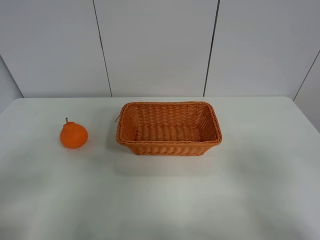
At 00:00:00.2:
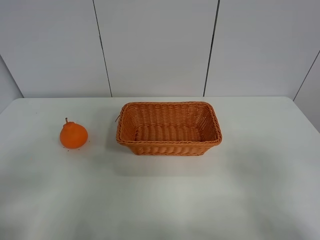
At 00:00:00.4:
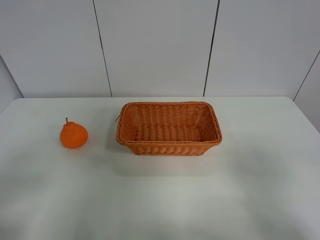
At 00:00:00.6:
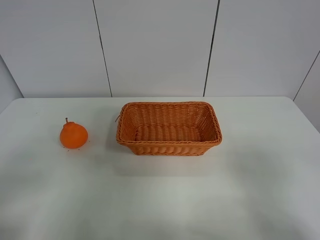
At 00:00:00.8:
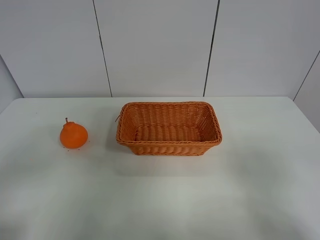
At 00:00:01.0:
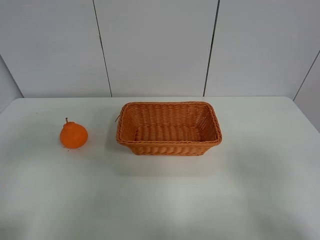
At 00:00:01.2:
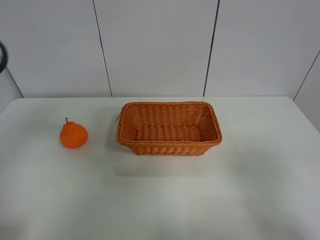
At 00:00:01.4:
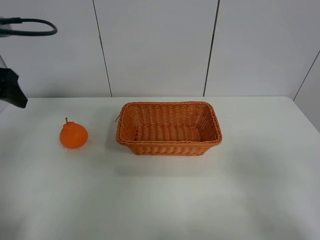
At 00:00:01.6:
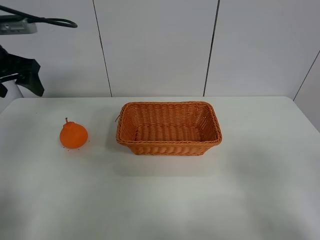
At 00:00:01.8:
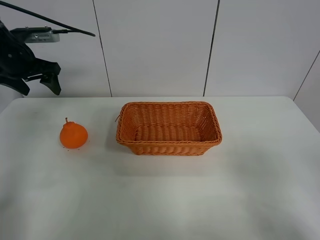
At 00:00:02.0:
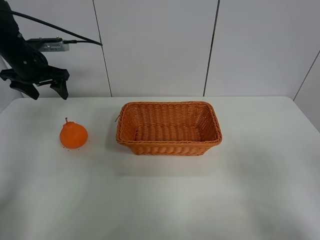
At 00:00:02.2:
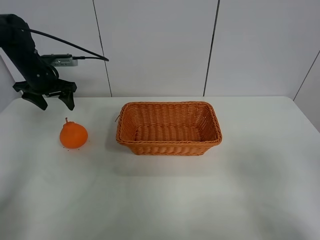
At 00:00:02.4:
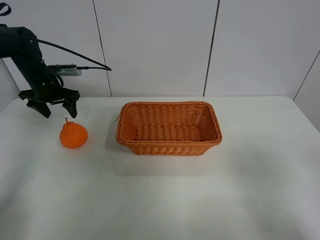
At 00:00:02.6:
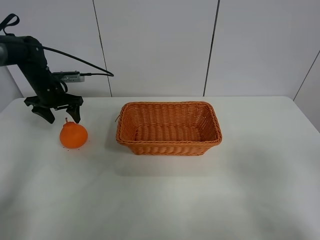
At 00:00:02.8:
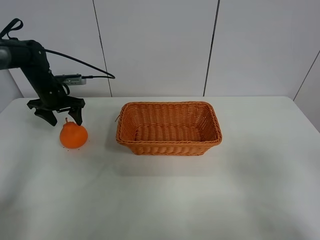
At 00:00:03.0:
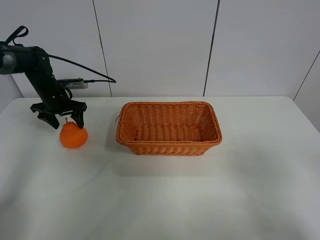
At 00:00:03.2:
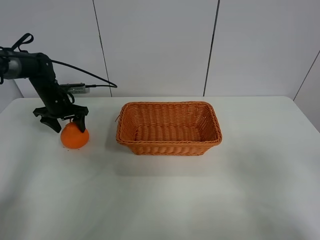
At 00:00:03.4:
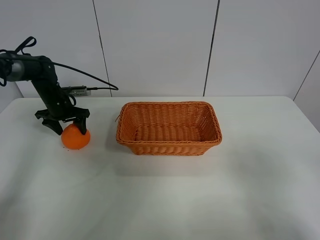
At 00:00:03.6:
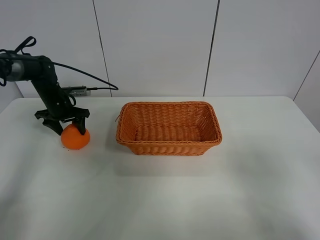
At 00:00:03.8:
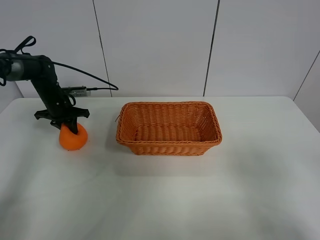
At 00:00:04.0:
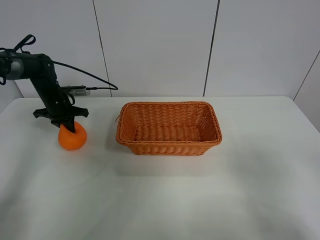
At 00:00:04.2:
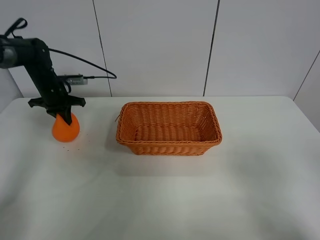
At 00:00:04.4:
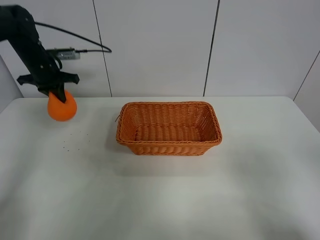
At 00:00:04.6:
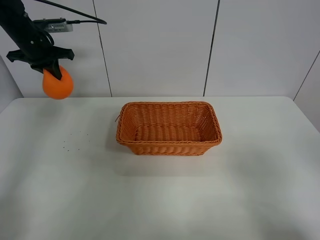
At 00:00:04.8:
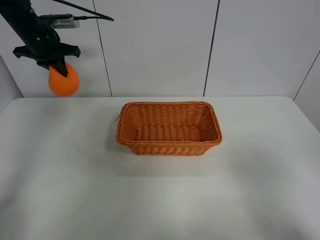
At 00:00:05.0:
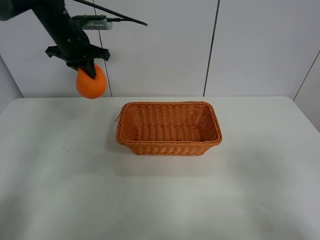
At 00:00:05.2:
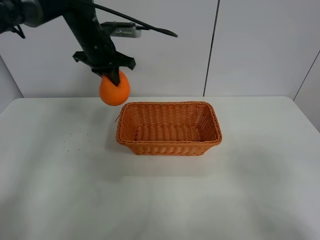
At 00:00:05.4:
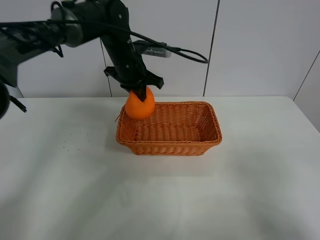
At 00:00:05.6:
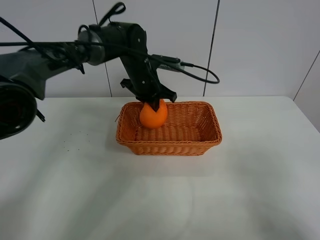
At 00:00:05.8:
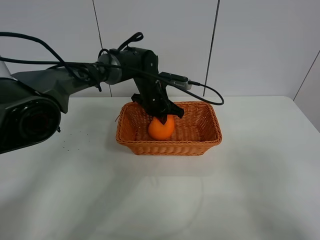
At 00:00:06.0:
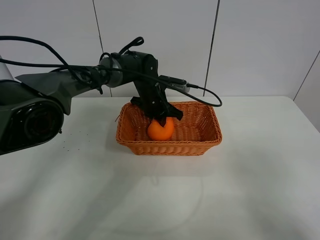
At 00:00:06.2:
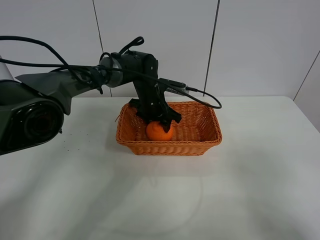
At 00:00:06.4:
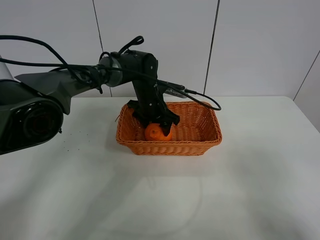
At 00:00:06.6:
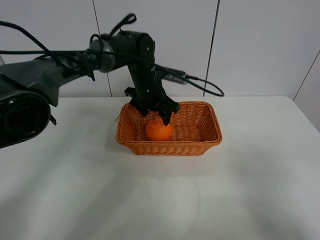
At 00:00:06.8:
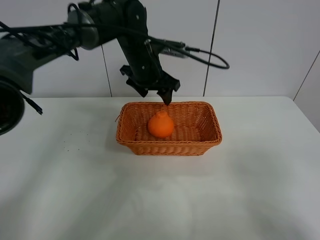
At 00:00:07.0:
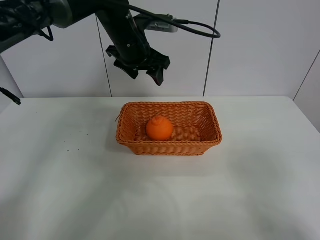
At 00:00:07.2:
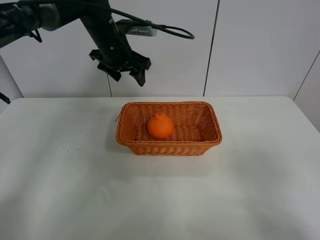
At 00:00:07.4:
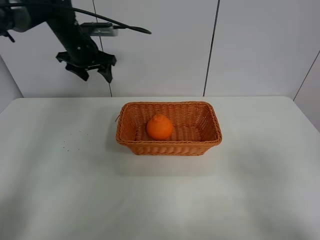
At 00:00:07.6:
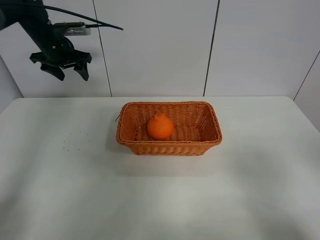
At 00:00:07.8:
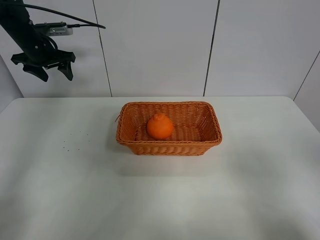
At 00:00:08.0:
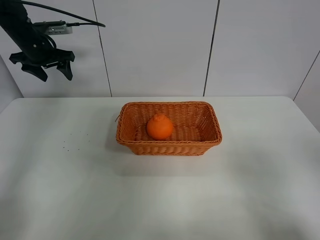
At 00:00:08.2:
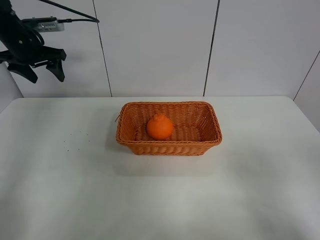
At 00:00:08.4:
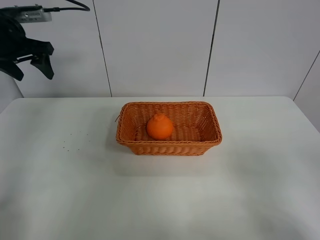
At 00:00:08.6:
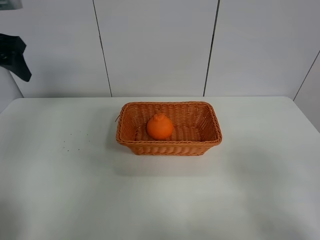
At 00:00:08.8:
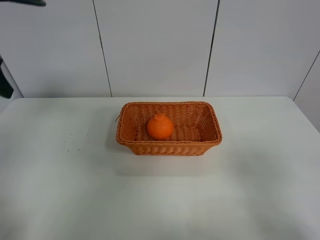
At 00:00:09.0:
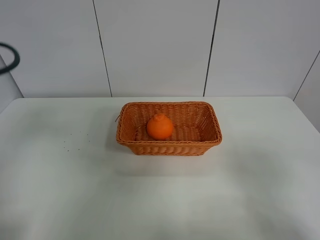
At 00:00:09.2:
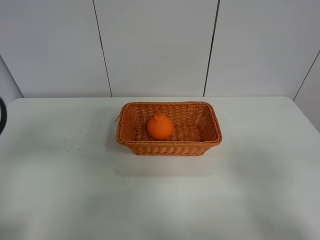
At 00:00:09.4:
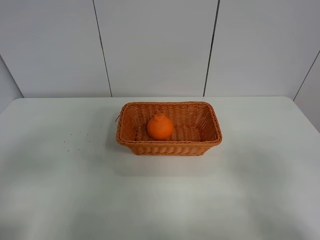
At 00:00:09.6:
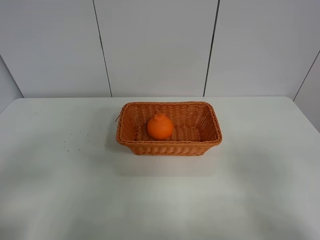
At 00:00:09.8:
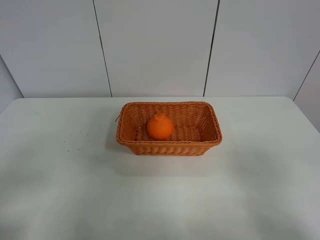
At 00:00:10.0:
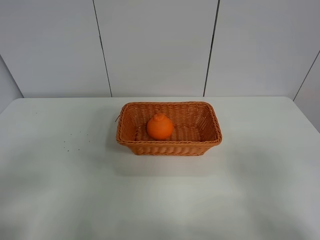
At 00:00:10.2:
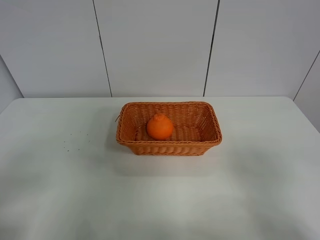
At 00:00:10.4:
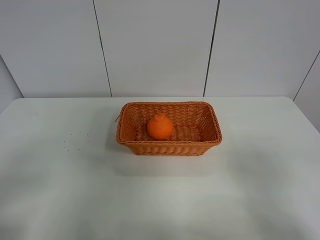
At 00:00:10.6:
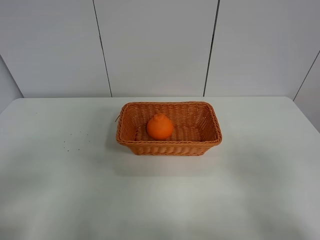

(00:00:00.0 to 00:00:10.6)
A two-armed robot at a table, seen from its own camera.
Task of the whole recording: left gripper grabs oranges and puts them in the basket.
Step, 00:00:00.0 - 00:00:03.8: Grasp the orange with left gripper.
Step, 00:00:04.0 - 00:00:07.2: Place the orange in the basket with left gripper.
00:00:00.0 - 00:00:01.6: The left gripper is displaced forward by about 35 cm.
00:00:01.6 - 00:00:03.0: The left gripper heads downward and forward, covering some 20 cm.
00:00:03.0 - 00:00:04.6: The left gripper is displaced upward by some 15 cm, and closes up.
00:00:04.6 - 00:00:06.0: The left gripper is displaced to the right and downward by some 30 cm.
00:00:06.0 - 00:00:07.6: The left gripper goes roughly 30 cm to the left and upward, and opens up.
00:00:07.6 - 00:00:09.0: The left gripper heads backward, covering roughly 35 cm.
00:00:09.0 - 00:00:10.6: The left gripper is displaced backward and downward by roughly 15 cm.
